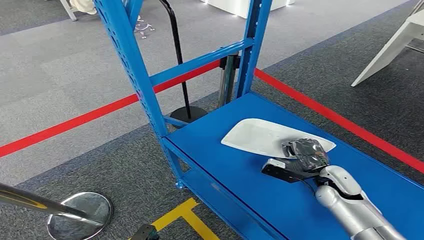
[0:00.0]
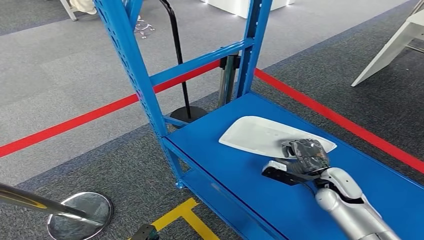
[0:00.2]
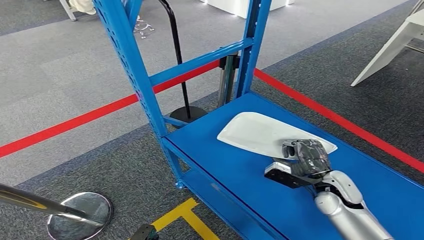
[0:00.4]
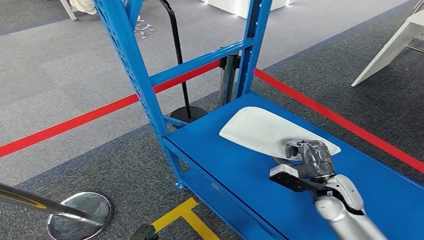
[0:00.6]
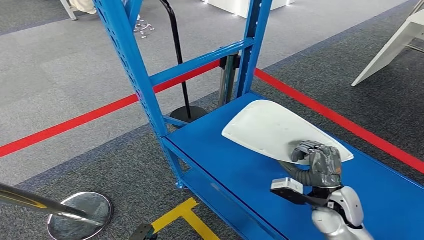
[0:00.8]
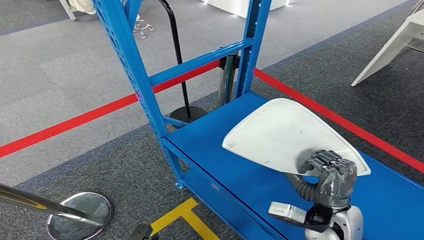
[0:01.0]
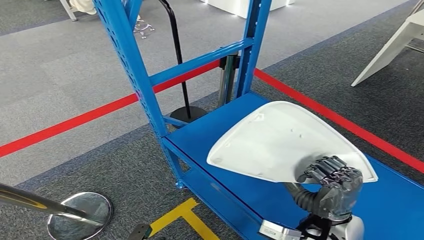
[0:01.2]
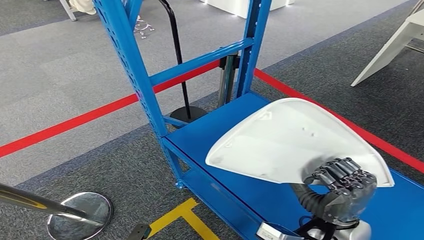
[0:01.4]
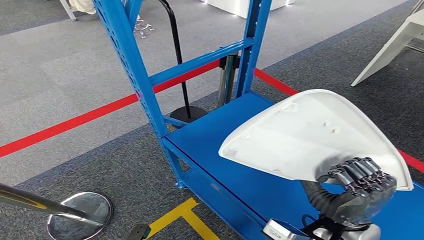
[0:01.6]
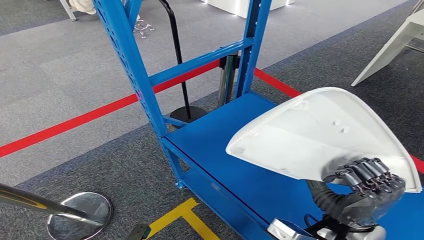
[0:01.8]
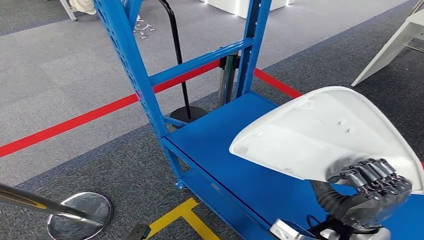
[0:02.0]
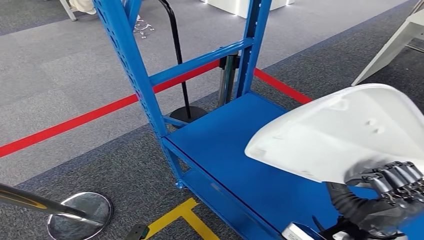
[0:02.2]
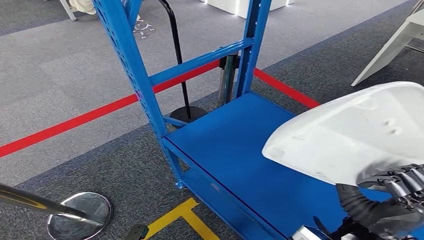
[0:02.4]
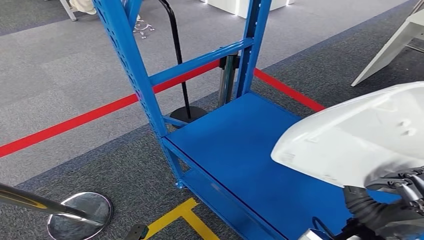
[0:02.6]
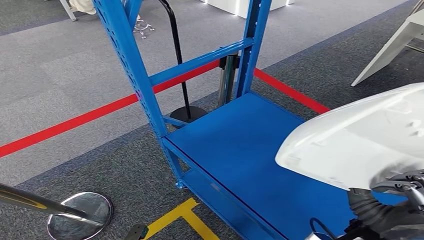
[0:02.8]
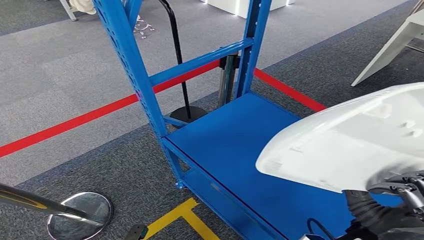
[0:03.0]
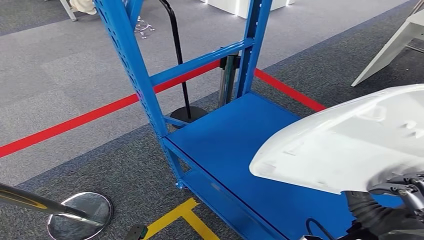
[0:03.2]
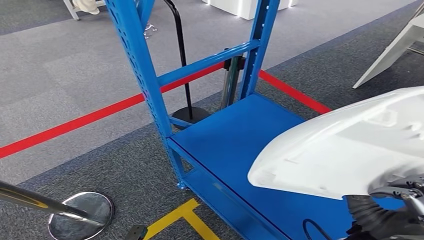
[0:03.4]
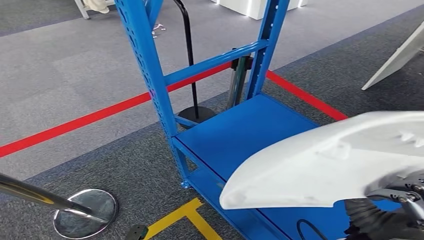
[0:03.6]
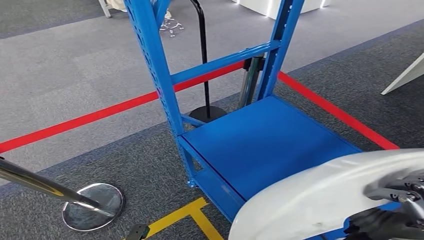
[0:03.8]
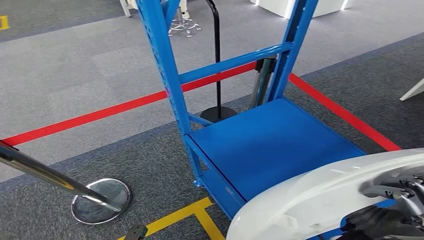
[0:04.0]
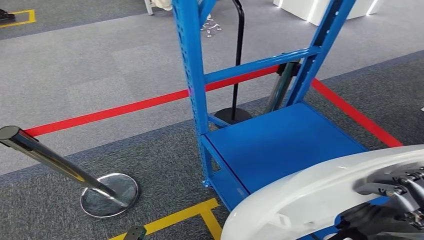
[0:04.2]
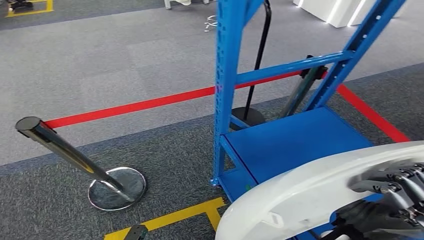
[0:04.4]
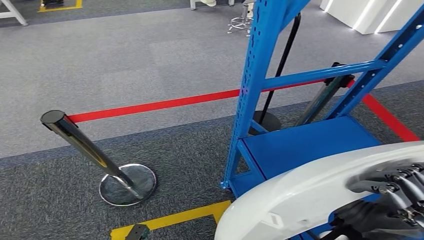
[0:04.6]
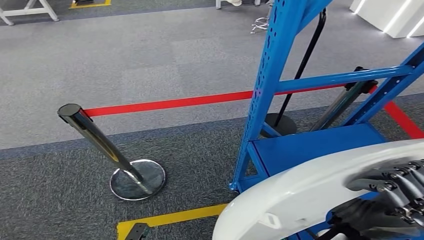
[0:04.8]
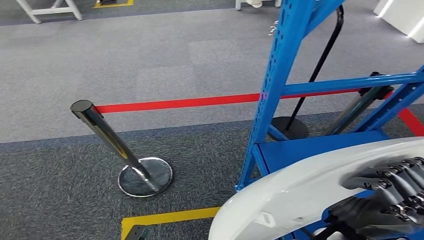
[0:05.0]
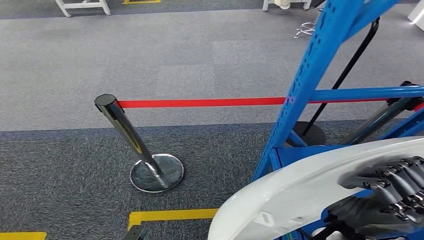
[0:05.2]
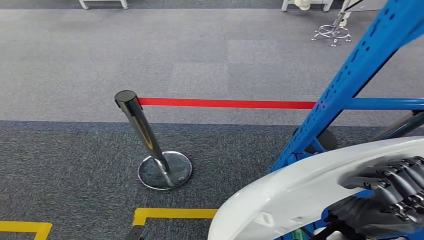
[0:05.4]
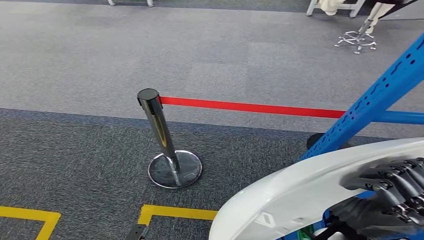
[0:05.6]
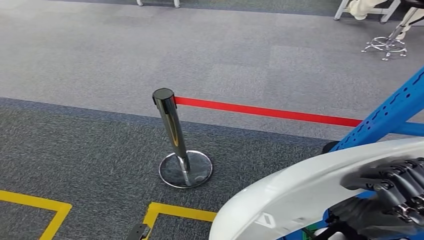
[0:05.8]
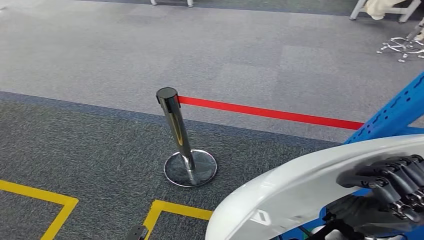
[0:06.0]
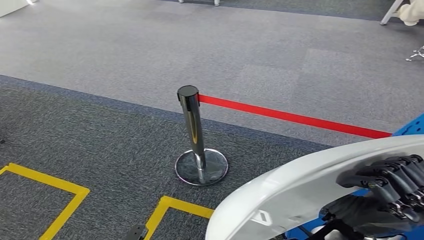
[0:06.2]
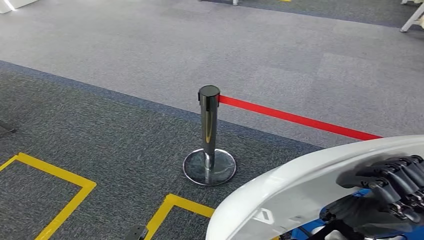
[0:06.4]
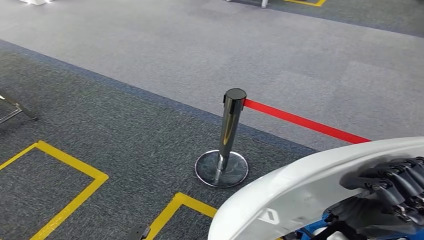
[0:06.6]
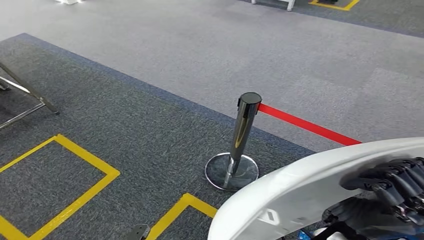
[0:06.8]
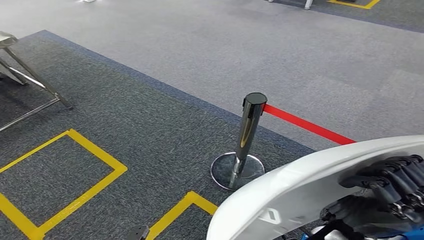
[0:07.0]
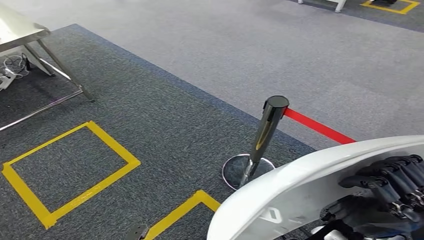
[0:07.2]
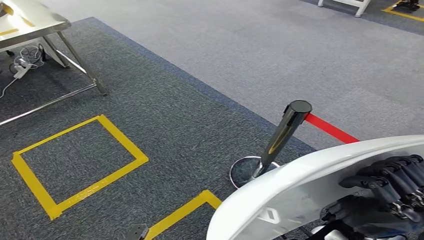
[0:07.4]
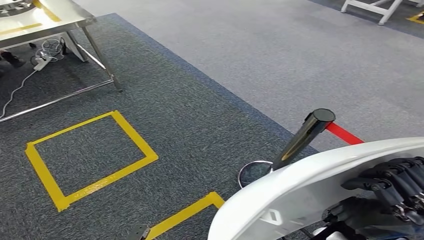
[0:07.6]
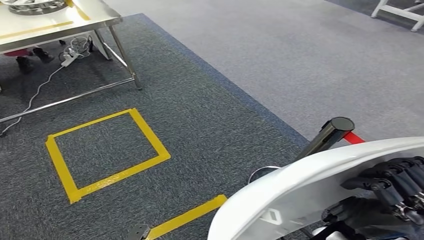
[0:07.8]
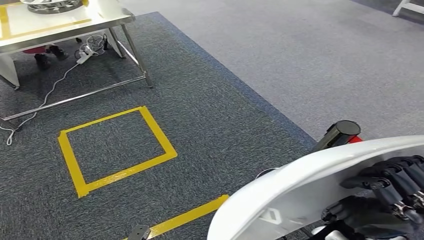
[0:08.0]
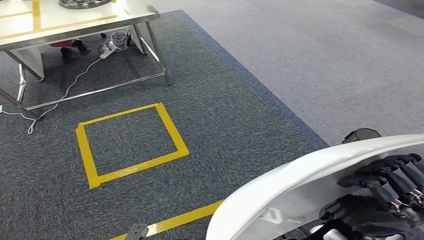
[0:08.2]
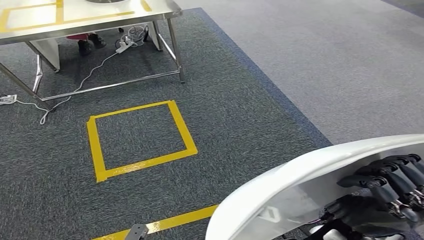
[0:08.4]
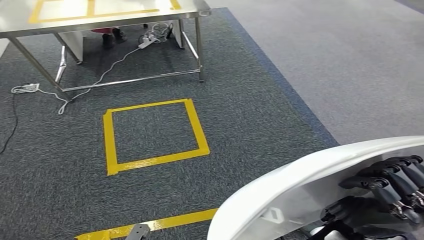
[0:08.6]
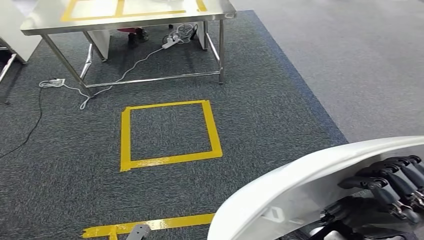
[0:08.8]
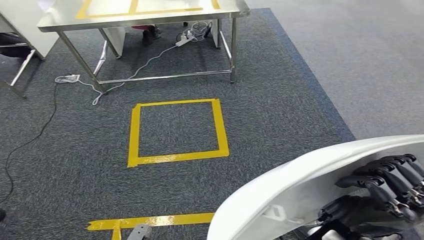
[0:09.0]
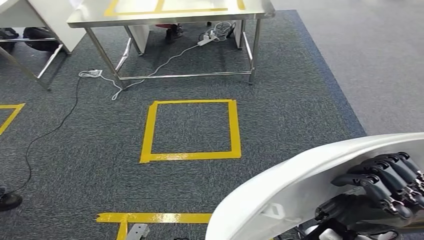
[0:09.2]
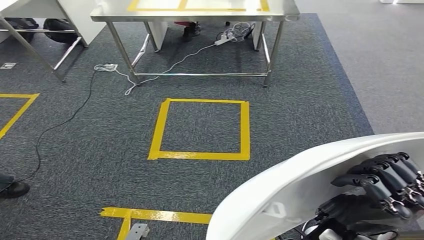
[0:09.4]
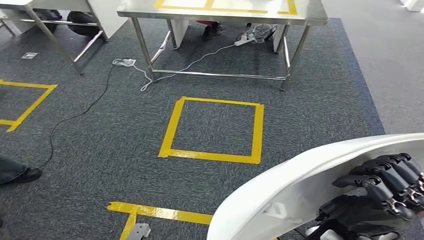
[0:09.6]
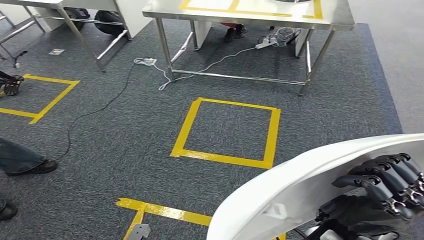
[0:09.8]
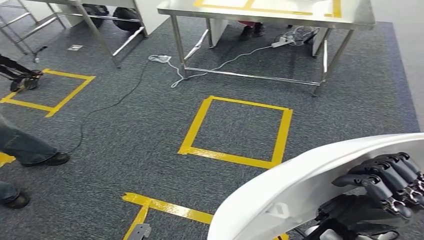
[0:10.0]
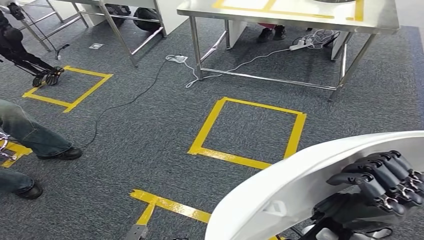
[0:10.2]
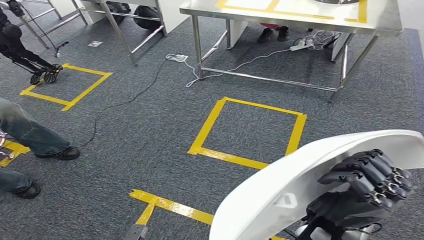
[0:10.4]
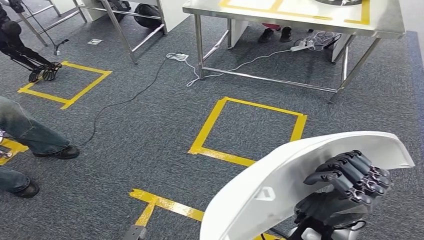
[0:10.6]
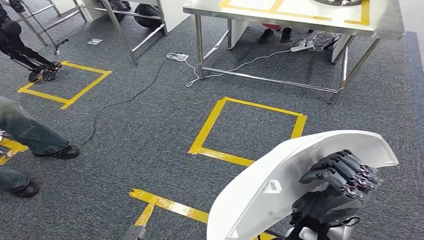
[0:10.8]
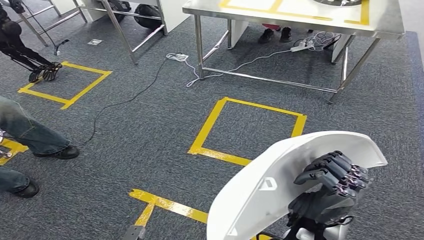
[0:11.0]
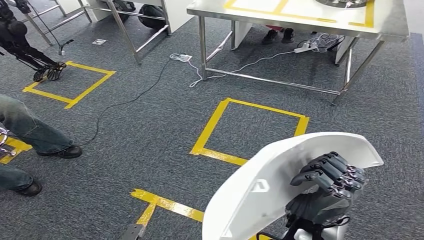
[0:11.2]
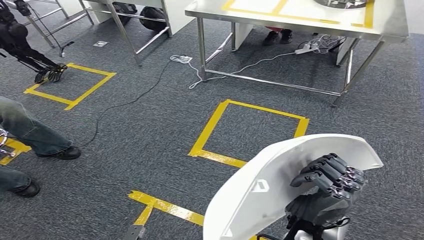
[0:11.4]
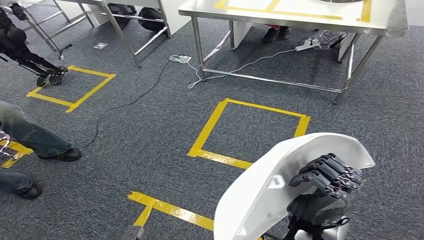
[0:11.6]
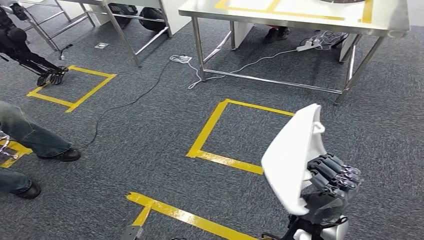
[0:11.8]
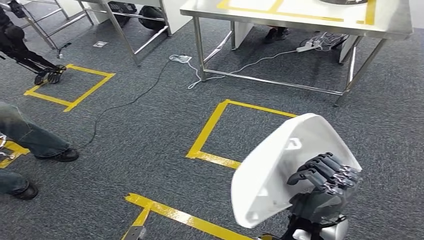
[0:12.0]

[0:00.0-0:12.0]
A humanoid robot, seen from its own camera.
Step, 0:00.0 to 0:03.0: Pick up the small component from the shelf.
0:01.6 to 0:03.0: The right hand changes place by roughly 5 cm.

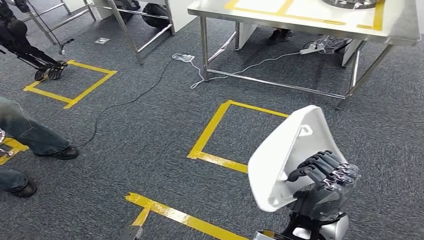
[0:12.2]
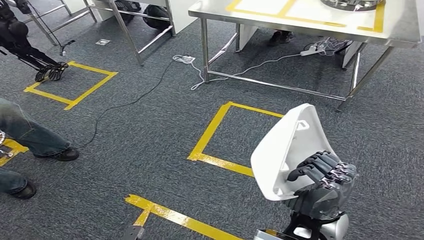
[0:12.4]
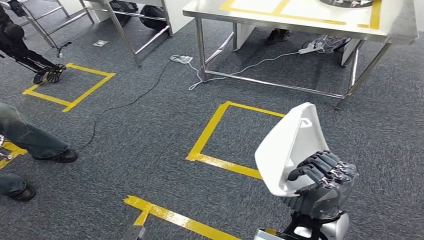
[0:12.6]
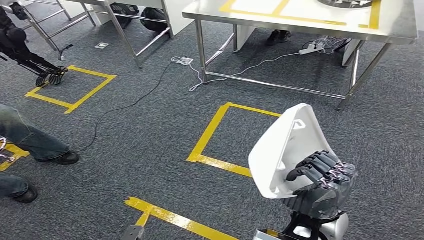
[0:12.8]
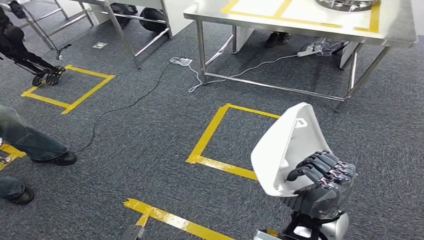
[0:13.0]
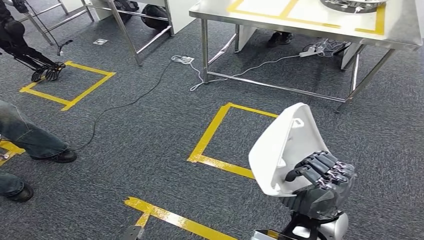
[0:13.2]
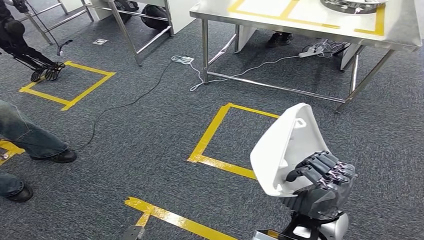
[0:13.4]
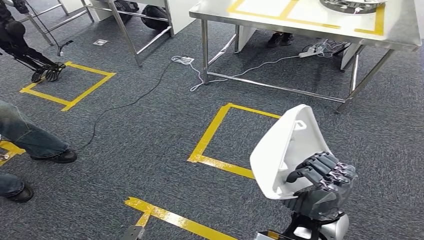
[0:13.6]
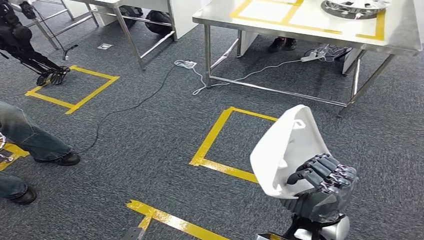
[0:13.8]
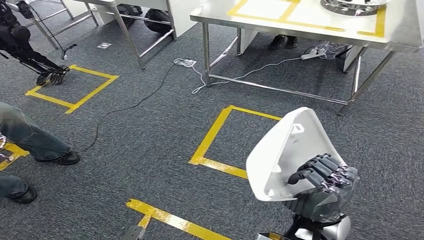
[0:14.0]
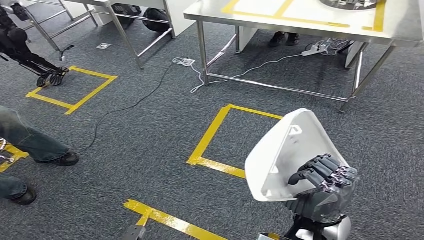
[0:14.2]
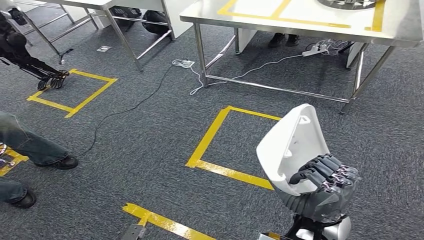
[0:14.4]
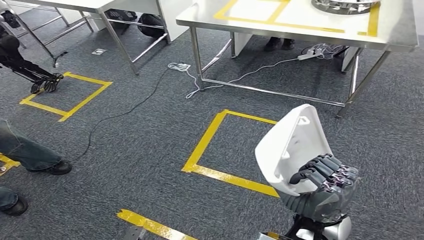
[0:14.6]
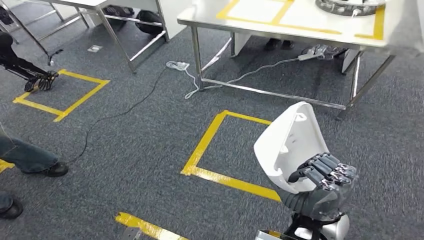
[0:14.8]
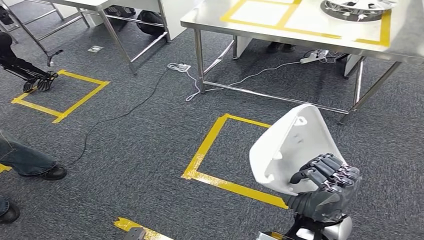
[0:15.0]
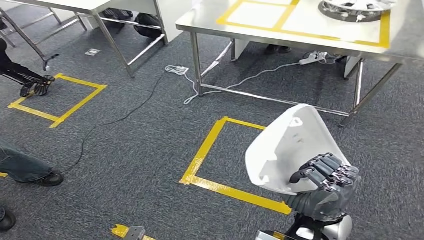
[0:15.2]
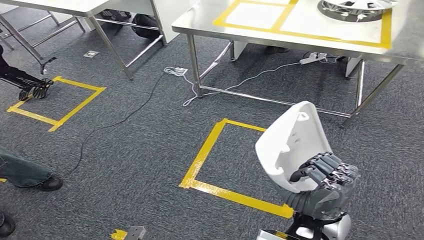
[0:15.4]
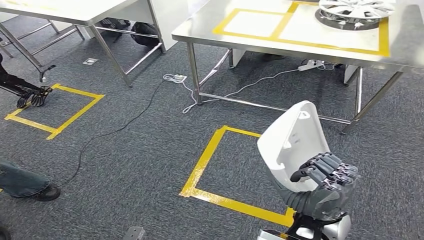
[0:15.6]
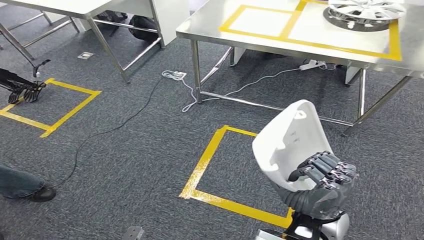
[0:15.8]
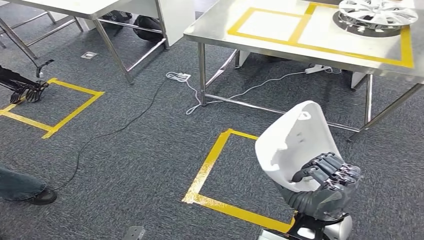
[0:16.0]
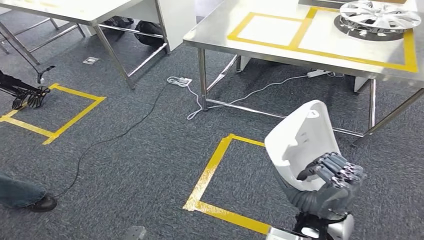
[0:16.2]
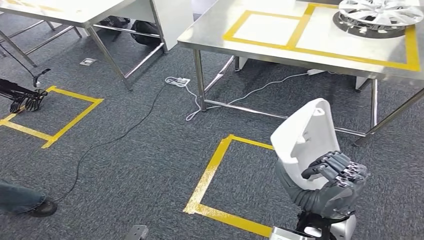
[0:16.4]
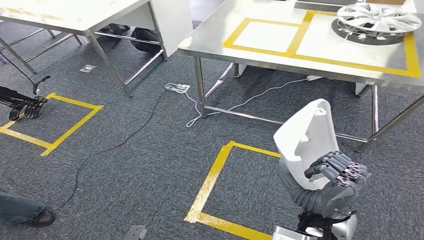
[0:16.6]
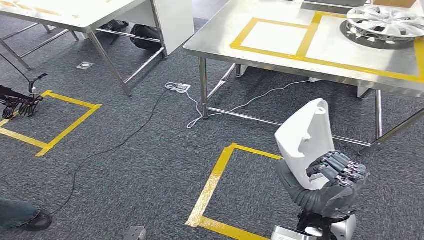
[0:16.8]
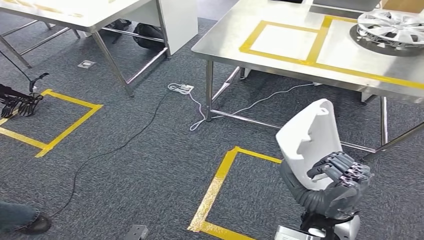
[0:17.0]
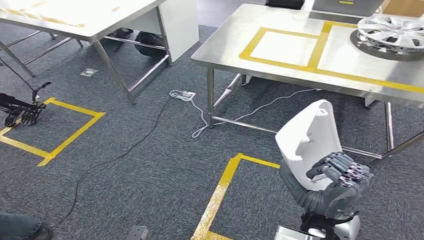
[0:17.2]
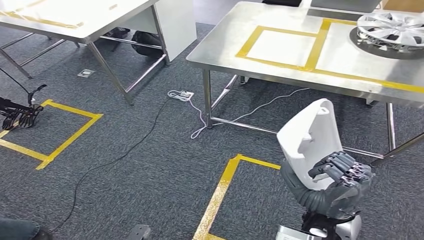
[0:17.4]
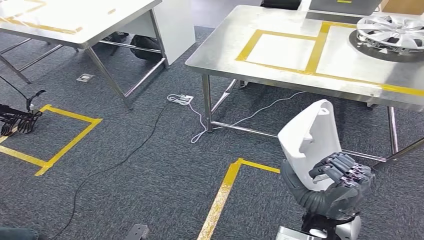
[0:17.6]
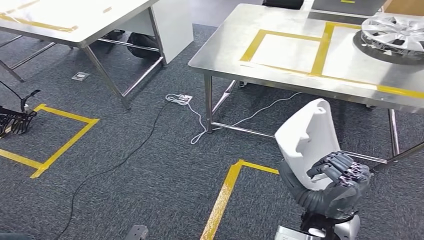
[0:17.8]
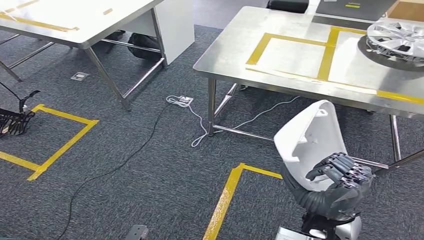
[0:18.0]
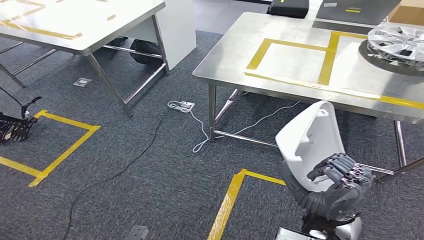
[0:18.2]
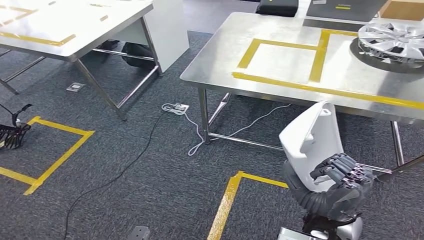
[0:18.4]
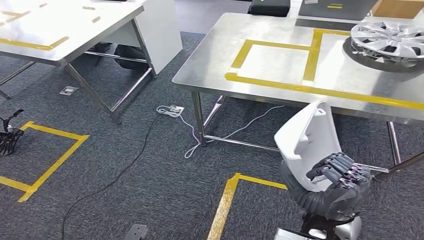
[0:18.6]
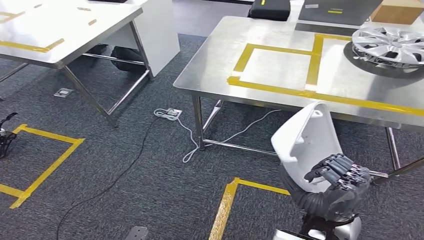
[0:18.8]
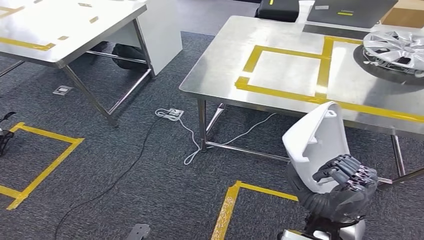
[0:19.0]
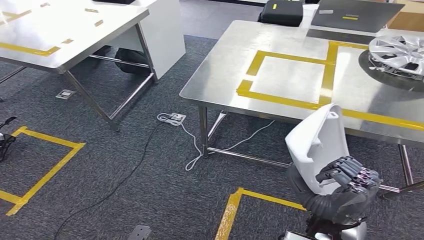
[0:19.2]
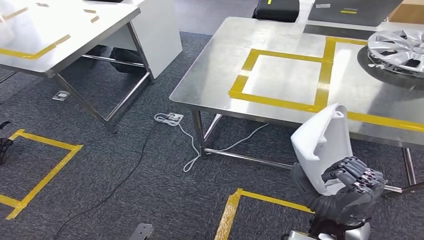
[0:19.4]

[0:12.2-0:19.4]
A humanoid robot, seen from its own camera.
0:12.2 to 0:13.6: Both hands stay about where they are.
